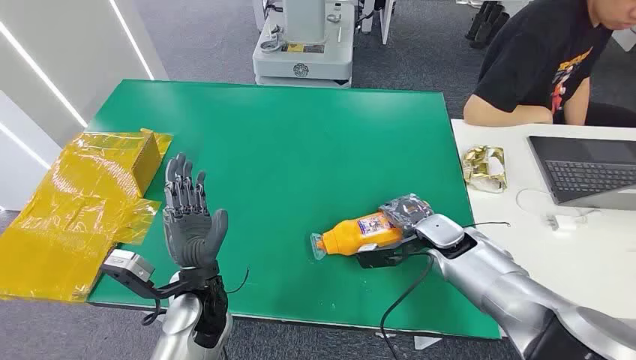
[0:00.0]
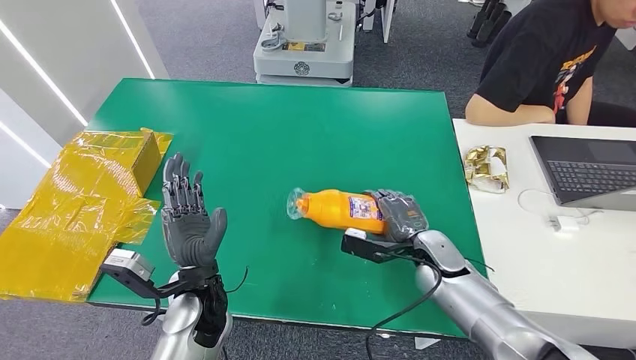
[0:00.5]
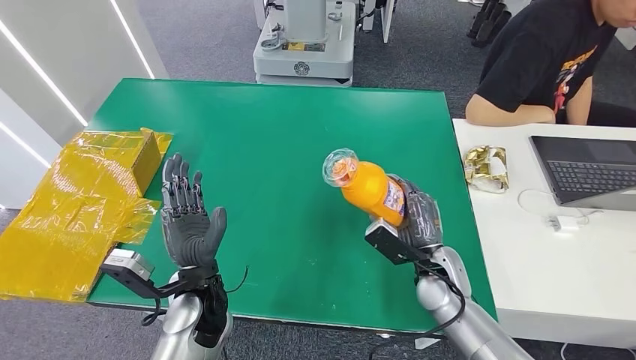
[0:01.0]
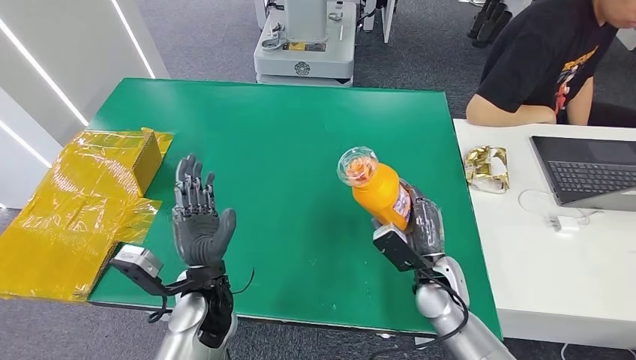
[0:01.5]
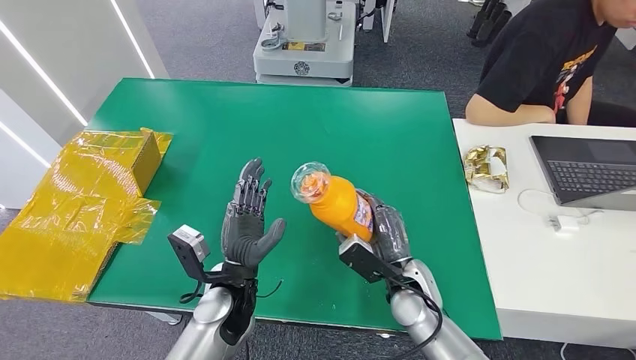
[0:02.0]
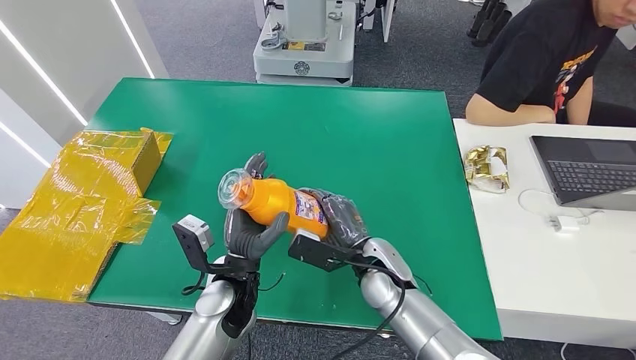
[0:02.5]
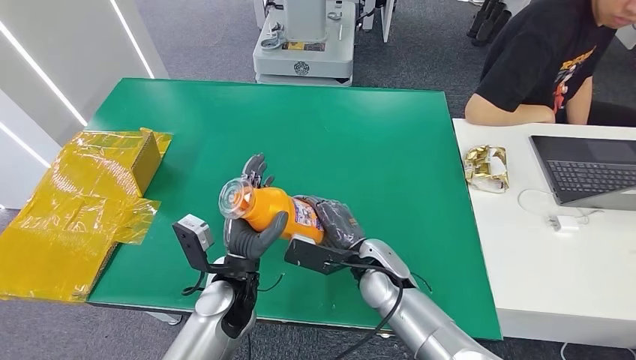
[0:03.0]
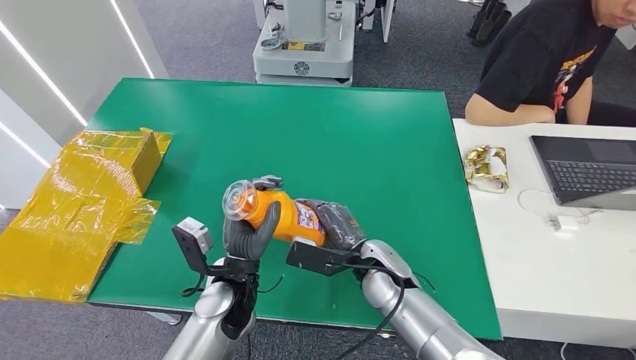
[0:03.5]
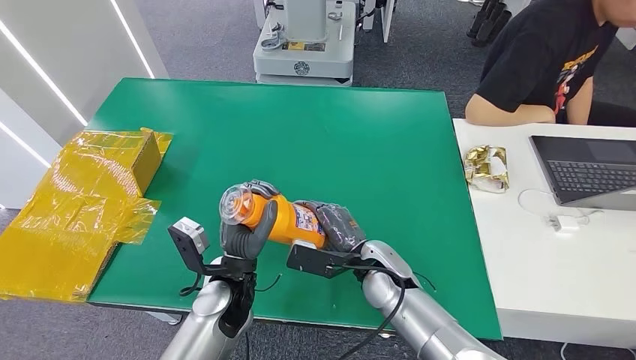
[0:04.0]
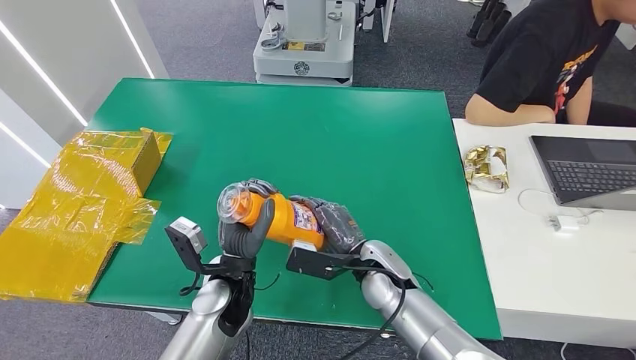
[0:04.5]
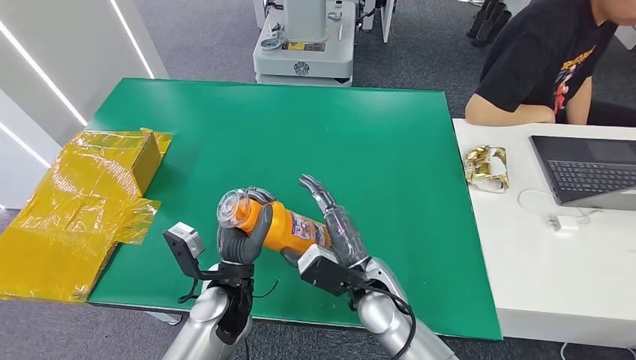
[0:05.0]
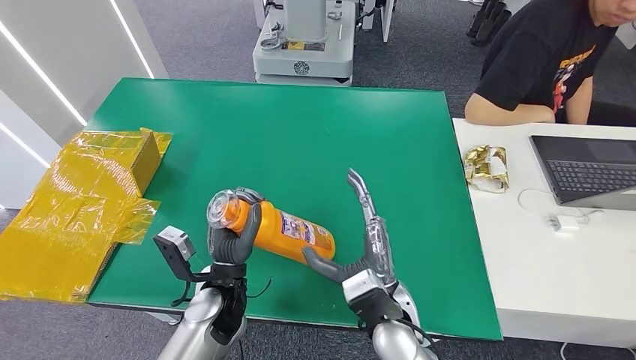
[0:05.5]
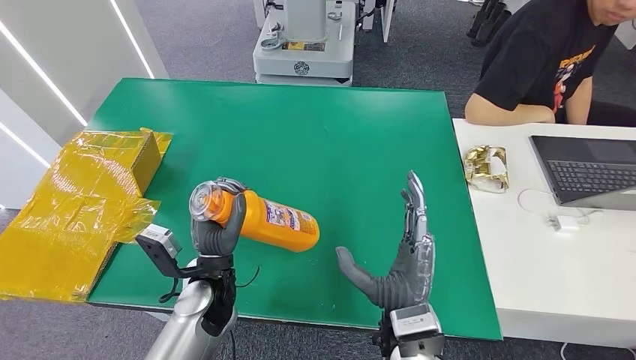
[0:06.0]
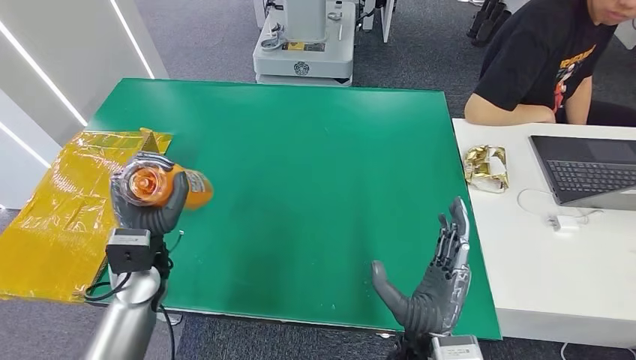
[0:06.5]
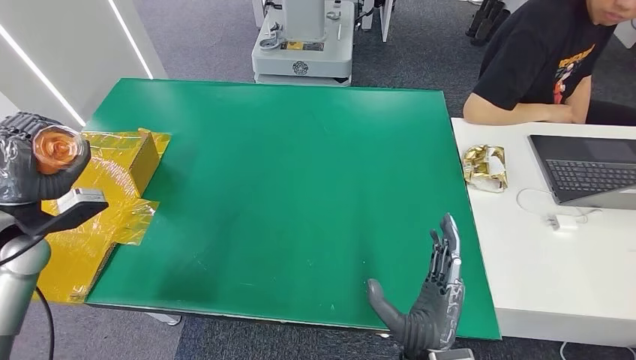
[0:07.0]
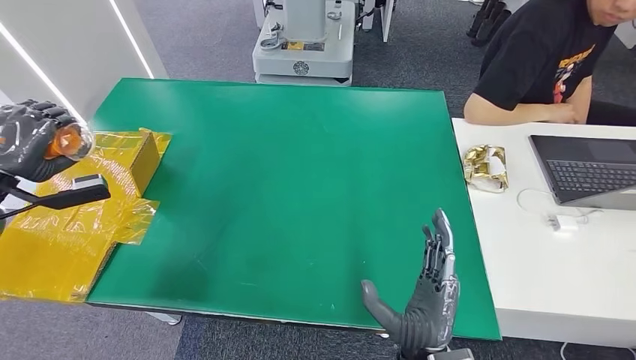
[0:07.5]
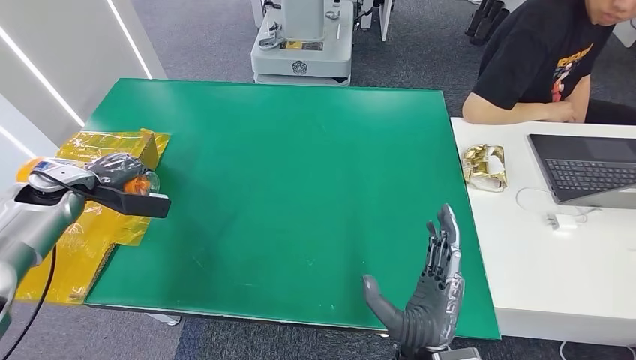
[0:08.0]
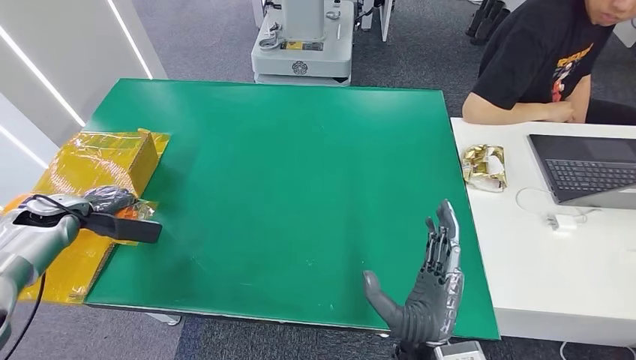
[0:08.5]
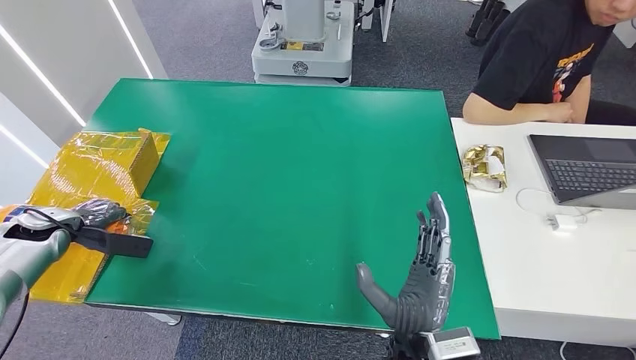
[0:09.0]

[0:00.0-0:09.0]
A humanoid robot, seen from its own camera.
Step, 0:00.0 to 0:03.0: Pick up the bottle from the table.
0:02.0 to 0:04.5: The right hand heads to the left, covering some 5 cm.
0:07.0 to 0:09.0: The left hand goes about 10 cm downward and to the left.

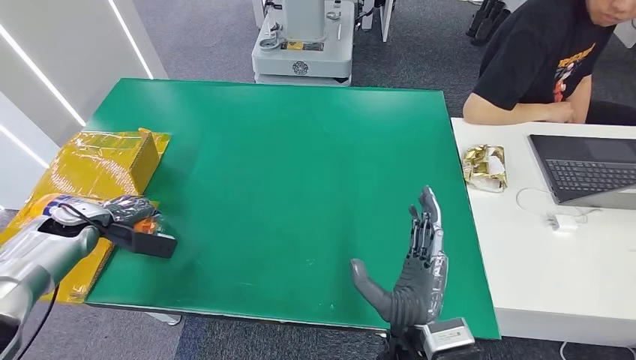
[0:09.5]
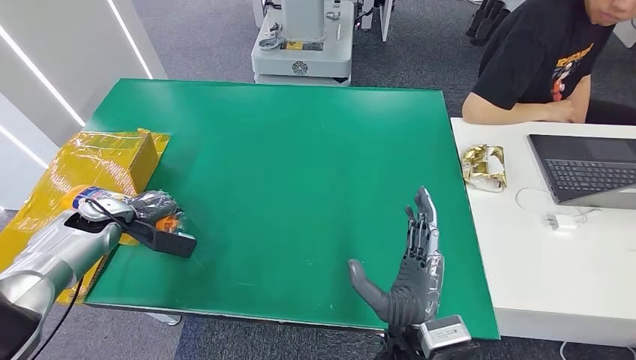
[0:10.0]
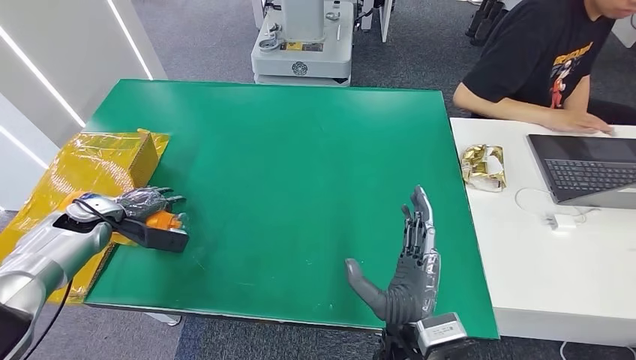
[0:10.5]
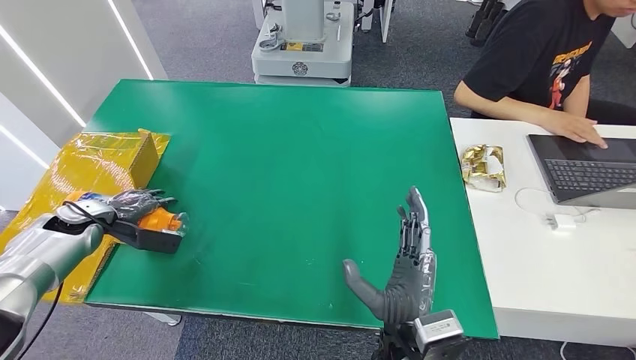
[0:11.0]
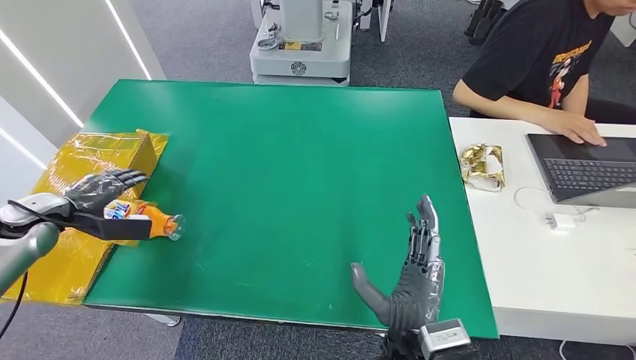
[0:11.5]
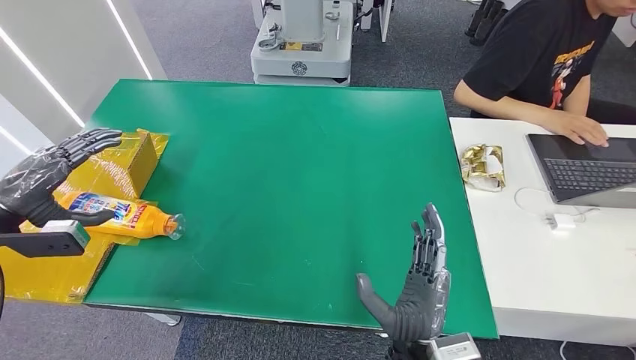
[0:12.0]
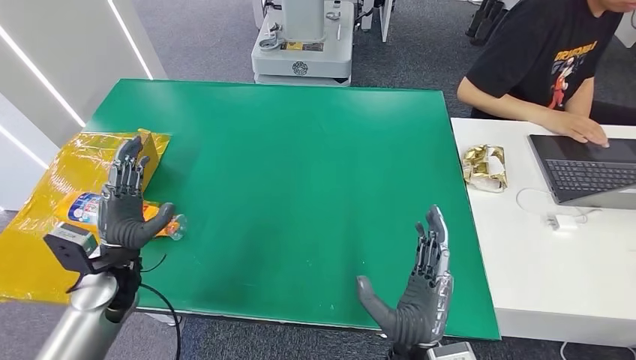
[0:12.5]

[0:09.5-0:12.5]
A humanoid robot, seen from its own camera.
Step, 0:09.5 to 0:12.5: Turn the bottle to the front side.
0:09.5 to 0:11.0: The hands move only a little.
0:11.0 to 0:12.5: The left hand shifts approximately 20 cm to the right and backward.
